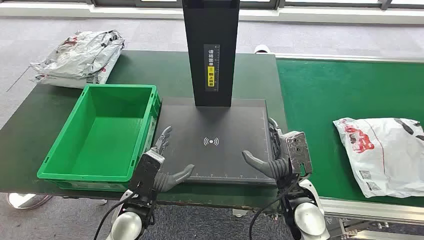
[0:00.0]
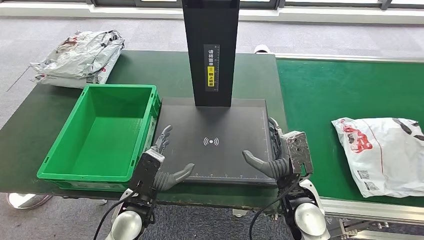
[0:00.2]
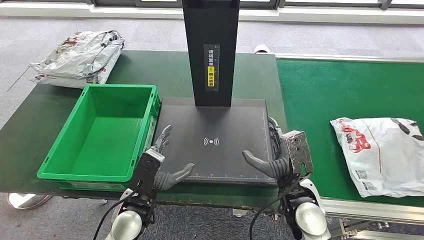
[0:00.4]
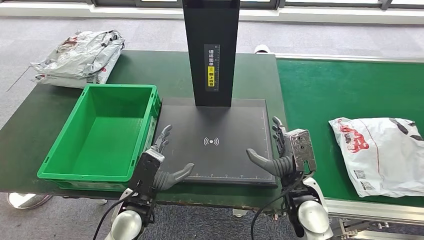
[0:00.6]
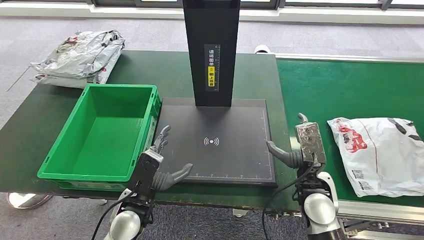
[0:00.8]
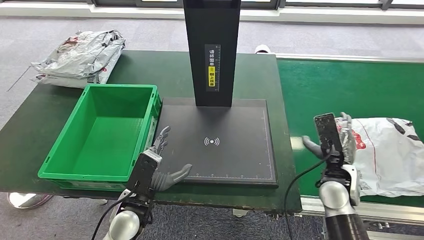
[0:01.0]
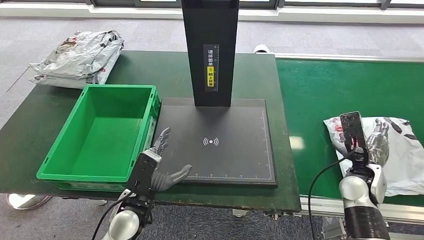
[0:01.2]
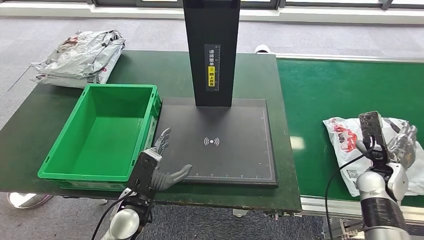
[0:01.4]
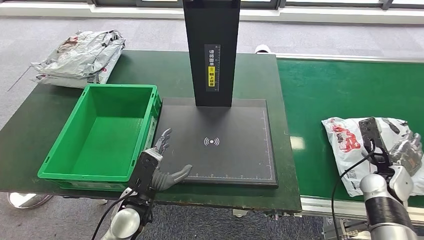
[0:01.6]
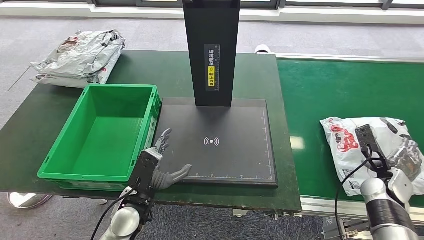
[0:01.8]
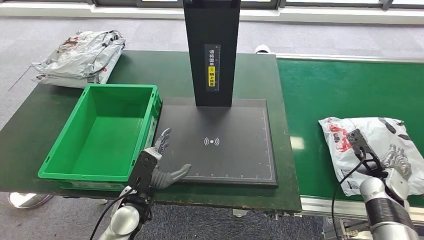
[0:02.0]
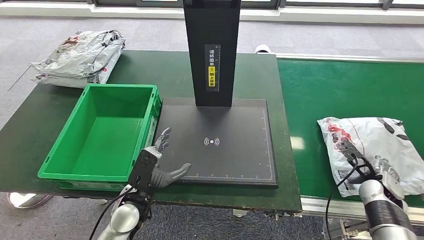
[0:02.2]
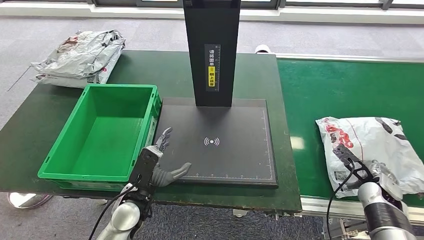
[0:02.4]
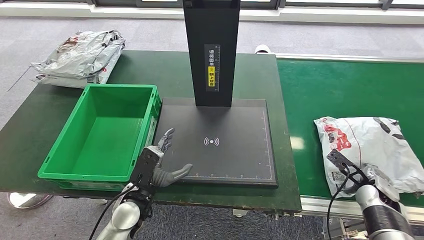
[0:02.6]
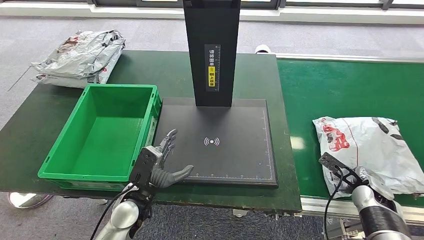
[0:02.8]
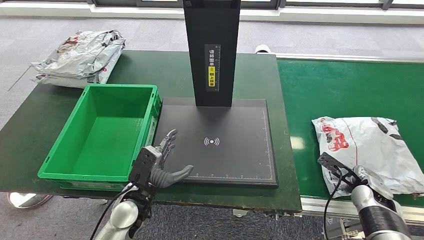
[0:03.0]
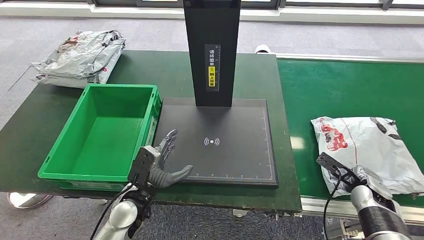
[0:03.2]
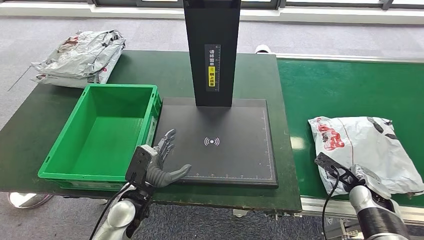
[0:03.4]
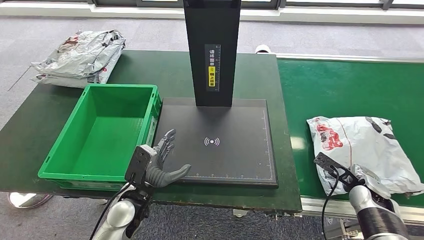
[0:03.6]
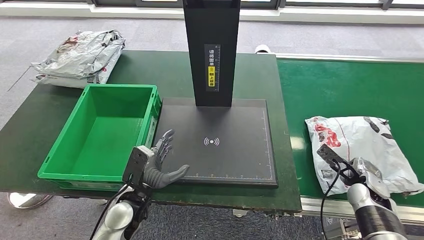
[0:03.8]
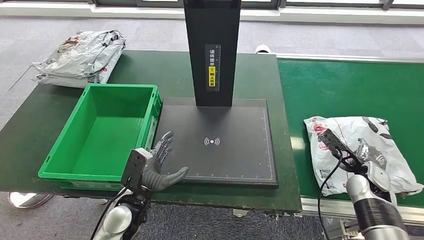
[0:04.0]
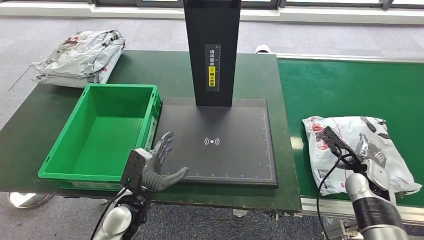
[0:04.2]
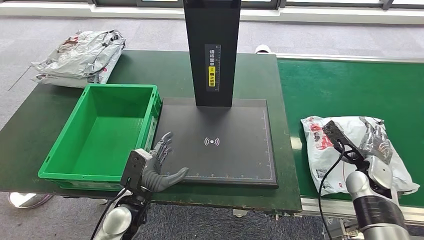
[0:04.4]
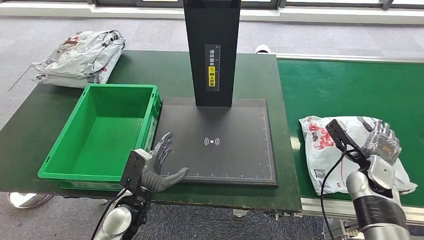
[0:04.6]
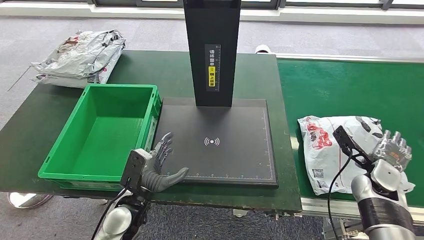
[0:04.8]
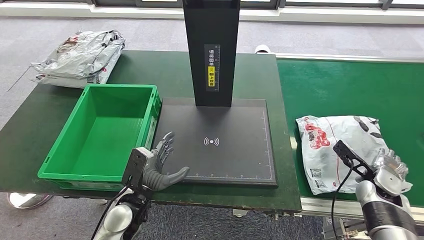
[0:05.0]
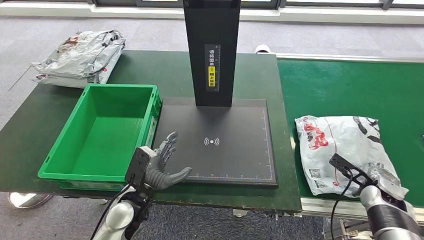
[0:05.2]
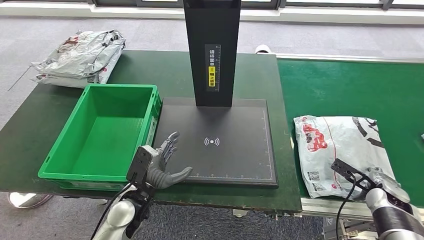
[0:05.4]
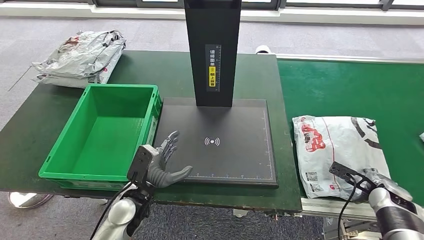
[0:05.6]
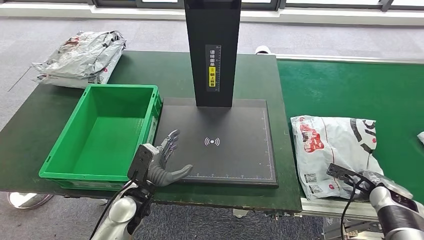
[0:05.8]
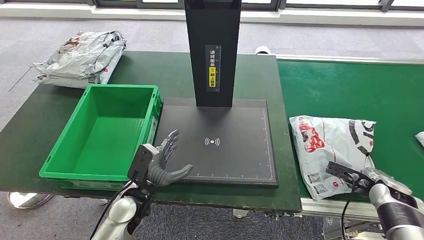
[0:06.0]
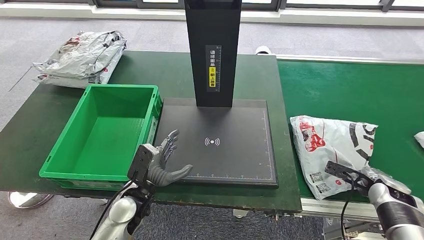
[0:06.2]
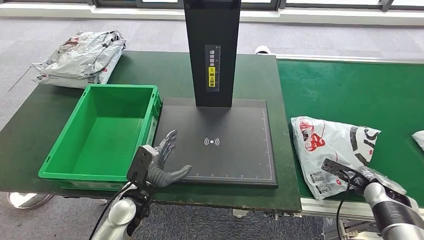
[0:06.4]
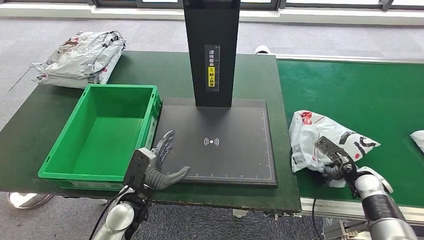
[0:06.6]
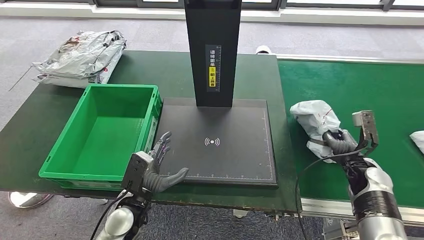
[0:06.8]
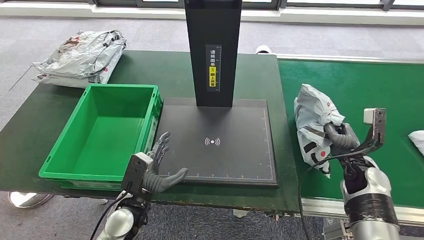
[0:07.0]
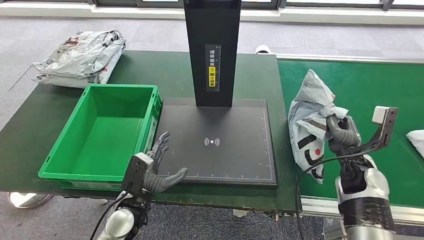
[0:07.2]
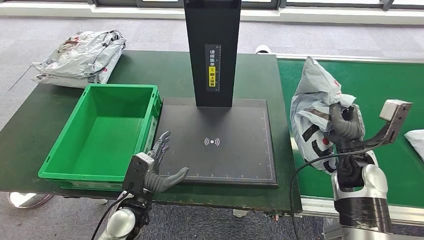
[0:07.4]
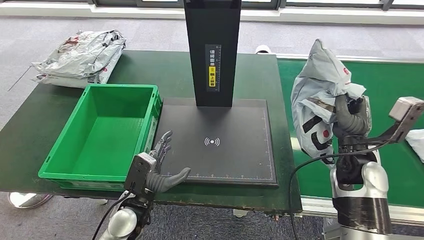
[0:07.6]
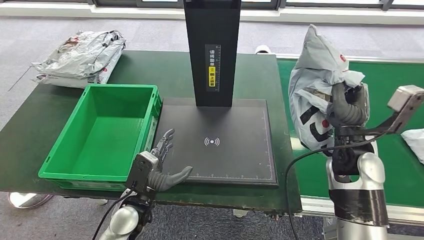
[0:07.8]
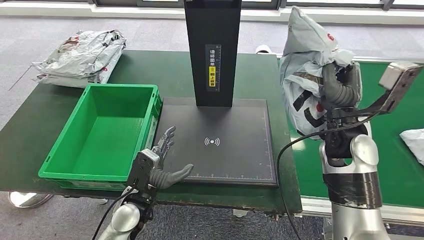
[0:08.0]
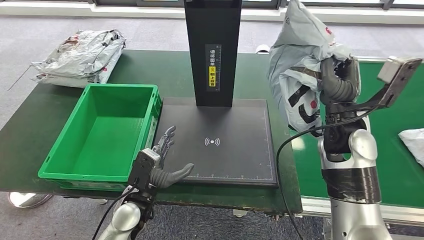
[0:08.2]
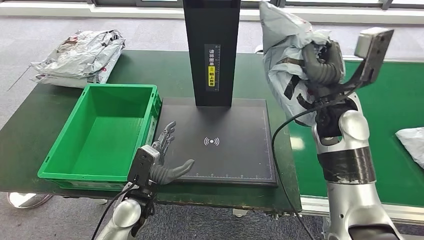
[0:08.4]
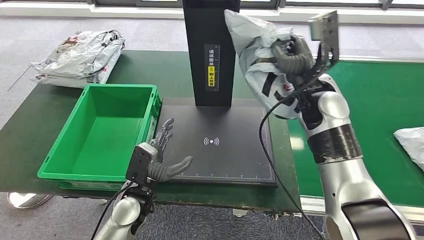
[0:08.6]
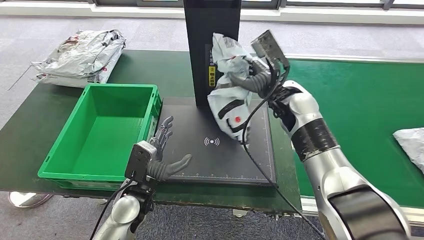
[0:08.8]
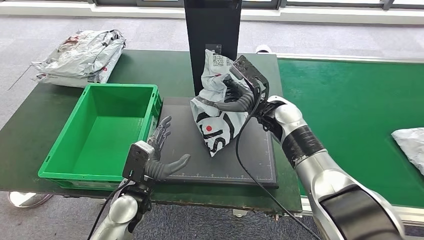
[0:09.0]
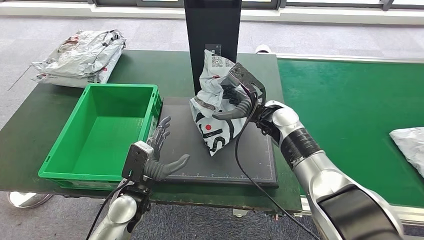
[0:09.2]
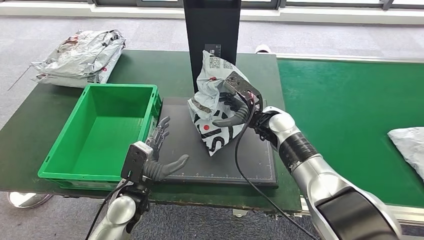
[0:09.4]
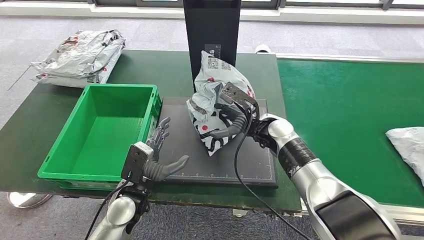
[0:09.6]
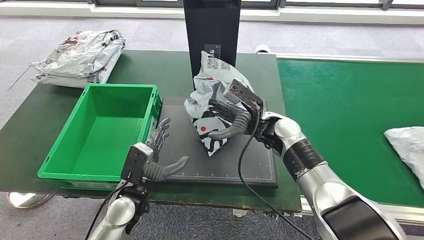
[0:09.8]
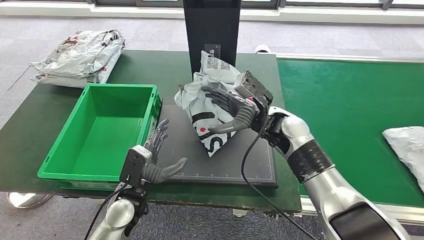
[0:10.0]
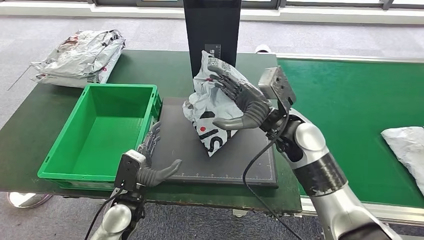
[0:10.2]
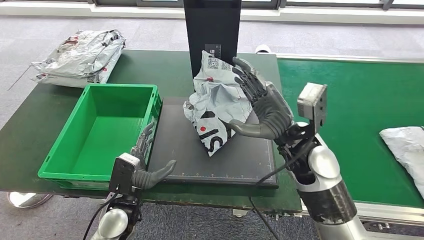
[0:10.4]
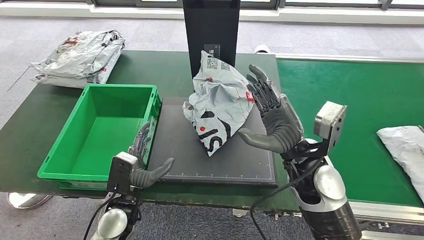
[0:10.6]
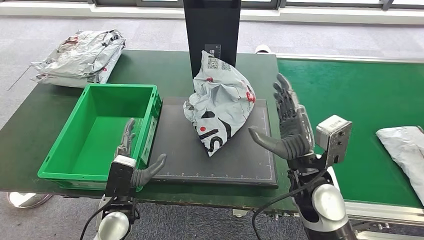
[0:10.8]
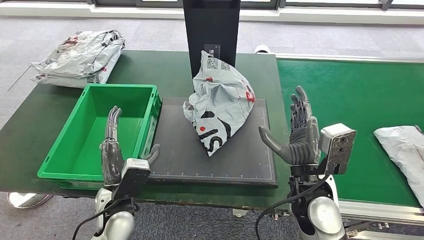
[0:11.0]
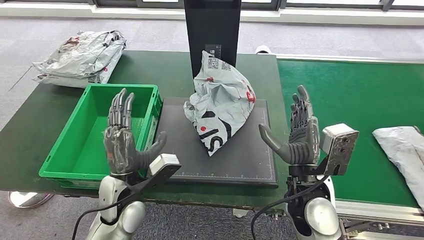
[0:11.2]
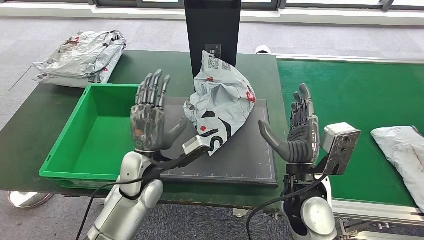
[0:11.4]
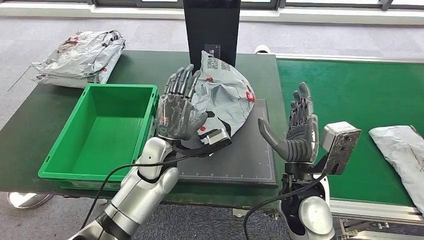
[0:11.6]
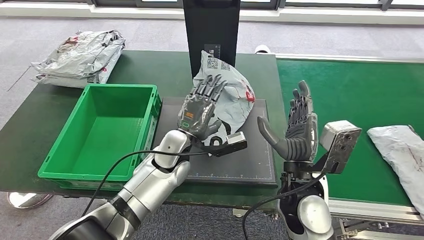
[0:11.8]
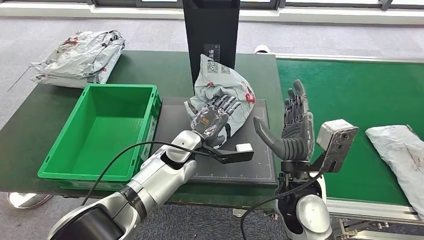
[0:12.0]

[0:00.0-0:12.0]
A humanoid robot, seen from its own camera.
Step, 0:00.0 to 0:08.2: Take the parcel off the conveyor belt.
Step, 0:08.6 to 0:11.0: Place the parcel onto the inbound machine.
0:01.6 to 0:03.0: The right hand ends up about 5 cm from where it was.
0:03.0 to 0:04.4: The right hand heads upward, covering approximately 5 cm.
0:04.4 to 0:06.0: The right hand moves to the right and downward, approximately 10 cm.
0:09.0 to 0:10.4: The right hand shifts roughly 10 cm backward.

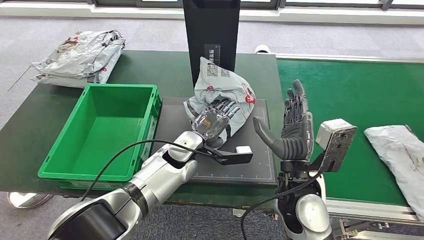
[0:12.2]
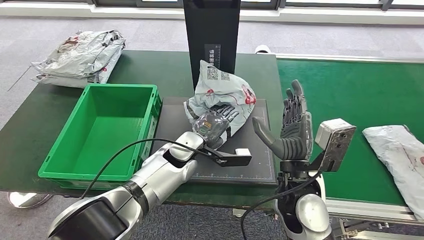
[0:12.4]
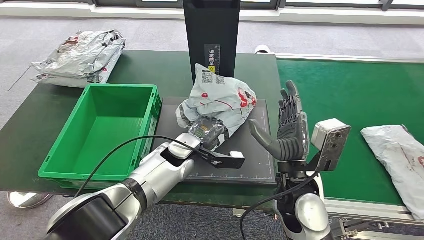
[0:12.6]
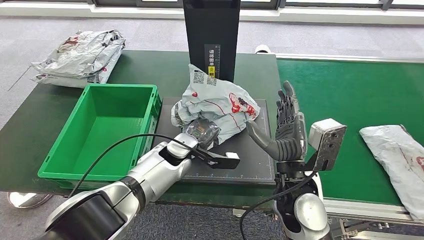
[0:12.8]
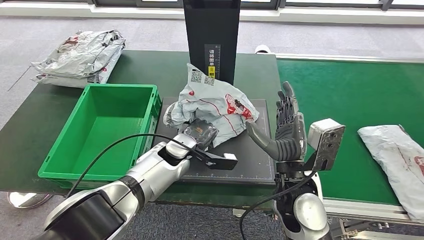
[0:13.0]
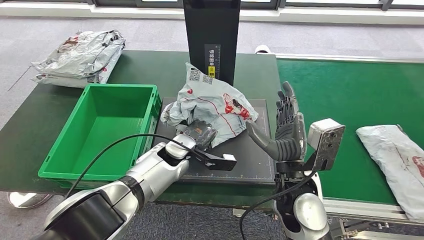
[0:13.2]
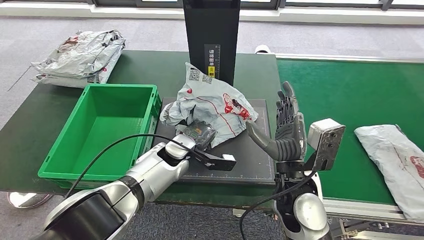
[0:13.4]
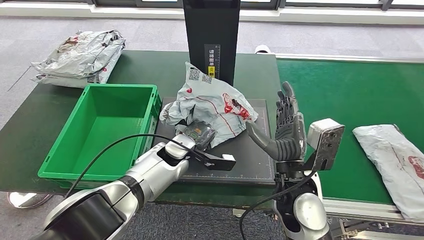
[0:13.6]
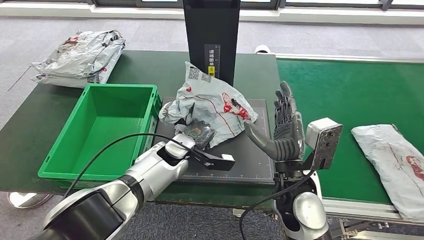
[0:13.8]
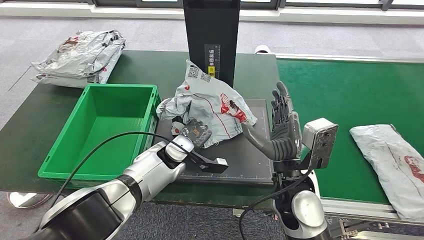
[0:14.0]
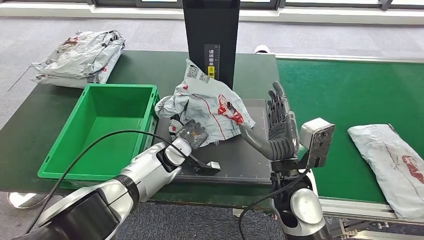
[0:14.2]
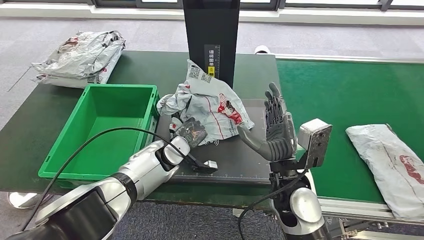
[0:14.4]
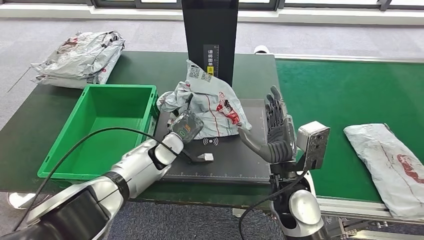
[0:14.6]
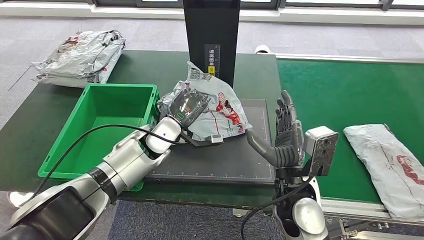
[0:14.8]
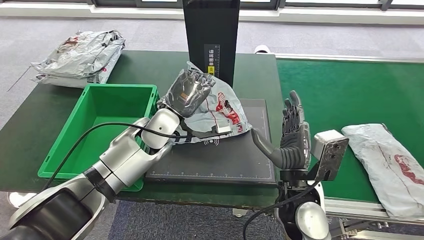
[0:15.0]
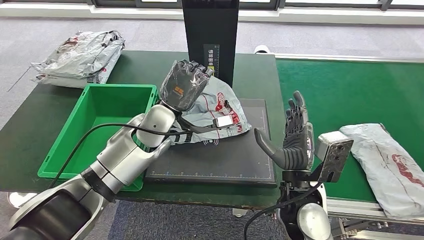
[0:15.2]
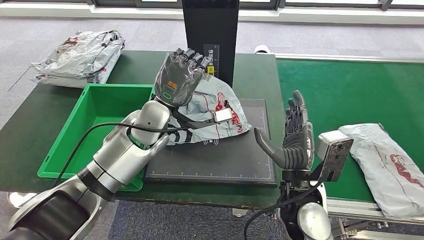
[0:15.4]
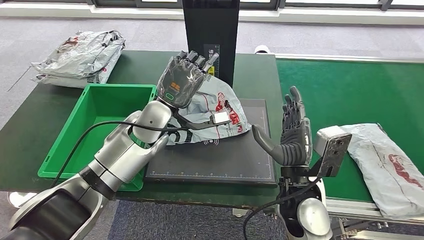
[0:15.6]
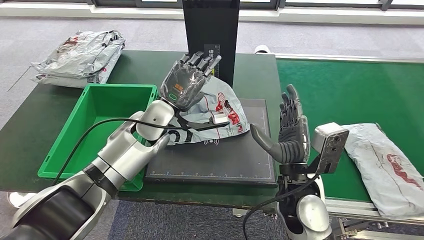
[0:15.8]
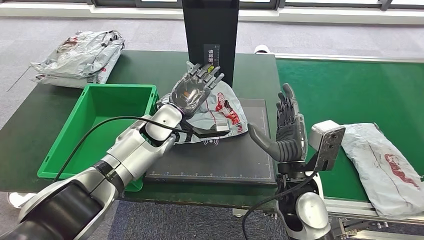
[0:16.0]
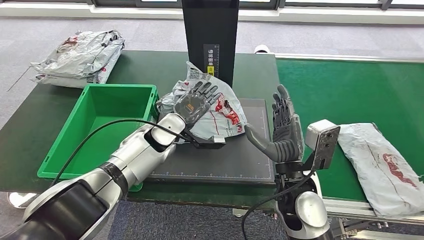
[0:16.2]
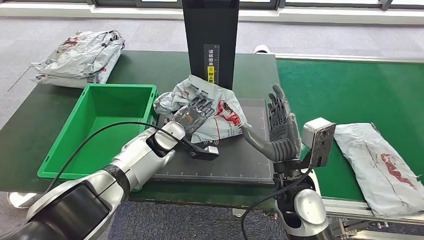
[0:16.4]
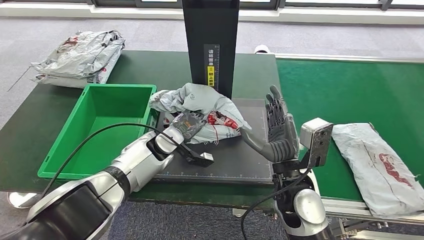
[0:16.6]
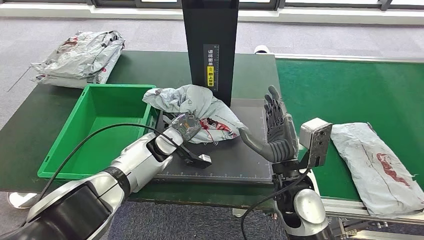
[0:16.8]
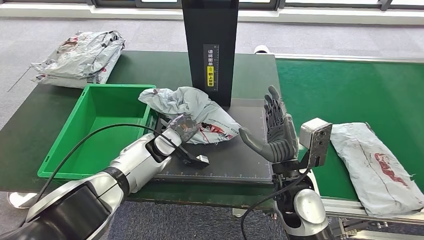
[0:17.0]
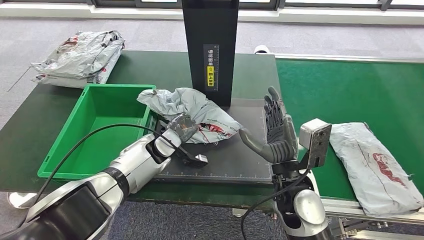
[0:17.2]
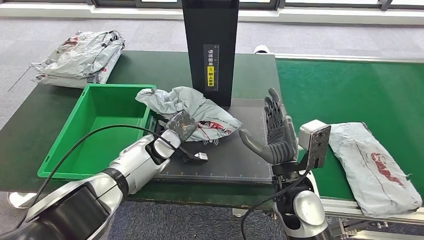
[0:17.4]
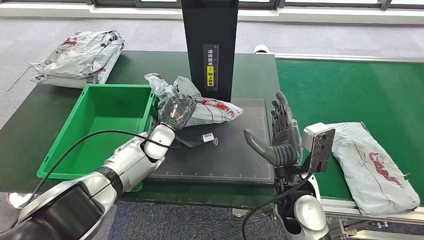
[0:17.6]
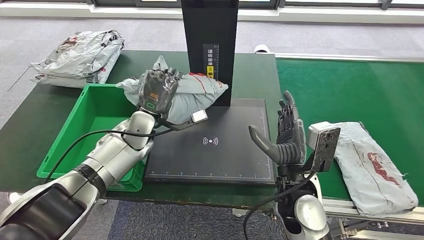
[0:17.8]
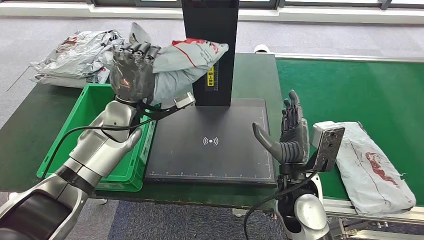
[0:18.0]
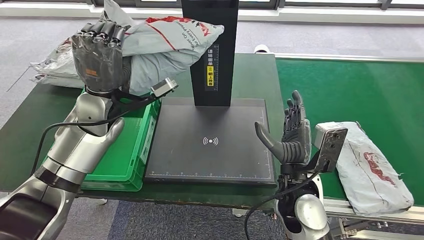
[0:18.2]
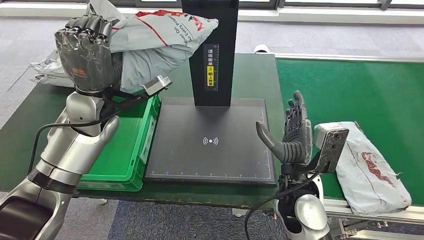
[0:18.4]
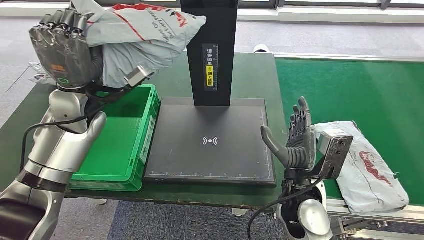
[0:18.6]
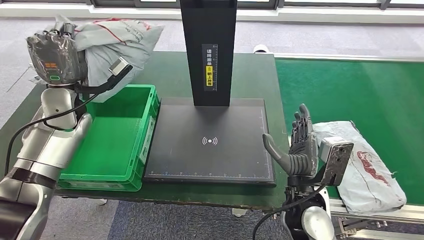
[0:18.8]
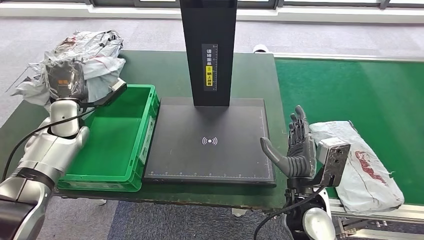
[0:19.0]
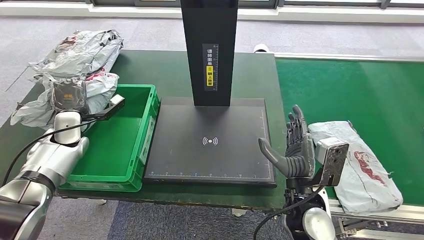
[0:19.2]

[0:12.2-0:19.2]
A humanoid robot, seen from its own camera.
Step, 0:12.2 to 0:18.2: Pick up the parcel from the inbound machine.
